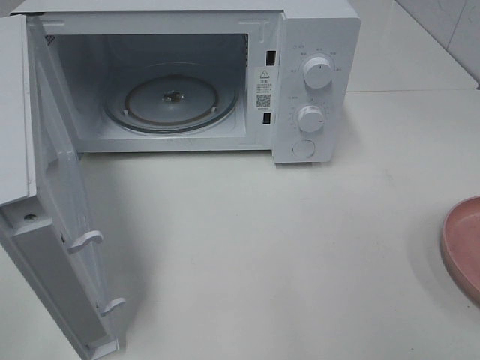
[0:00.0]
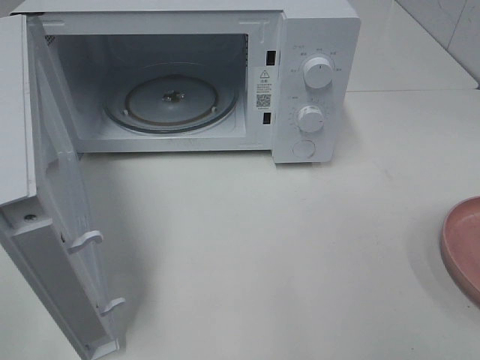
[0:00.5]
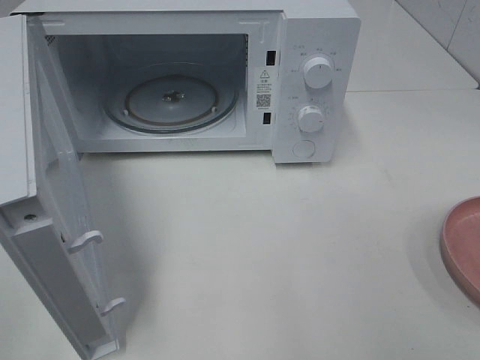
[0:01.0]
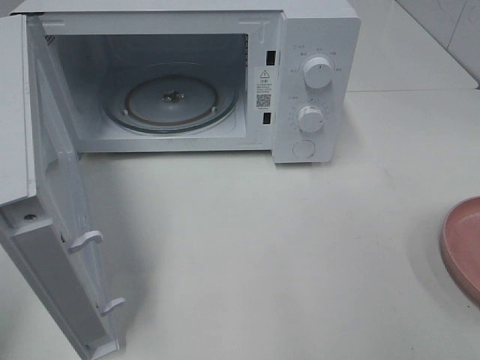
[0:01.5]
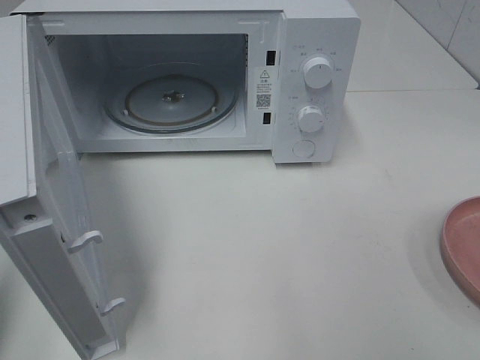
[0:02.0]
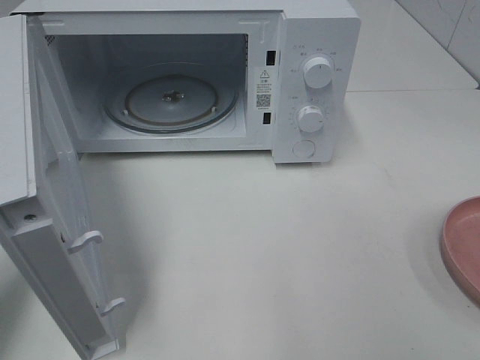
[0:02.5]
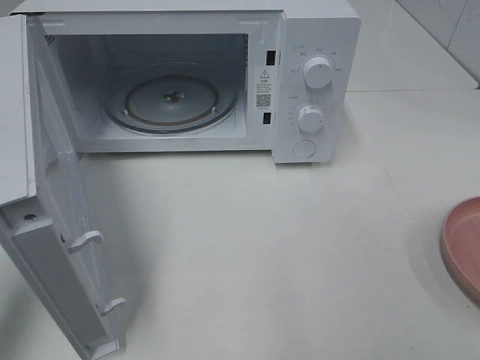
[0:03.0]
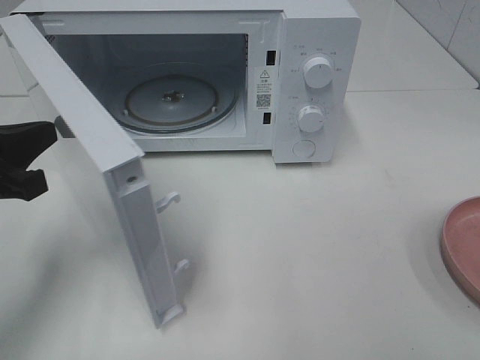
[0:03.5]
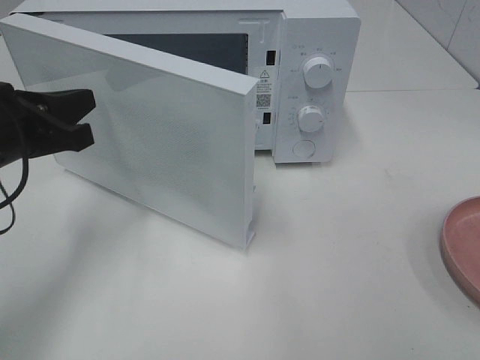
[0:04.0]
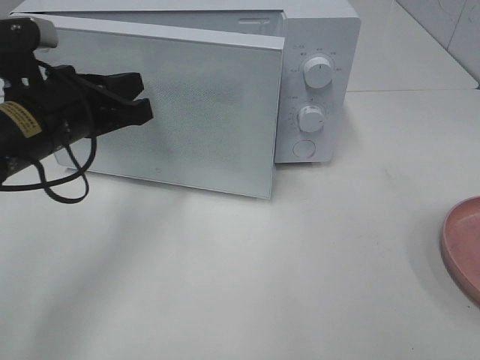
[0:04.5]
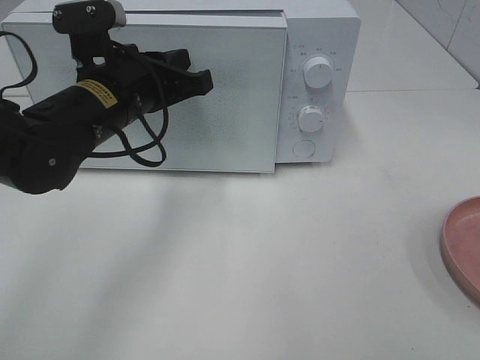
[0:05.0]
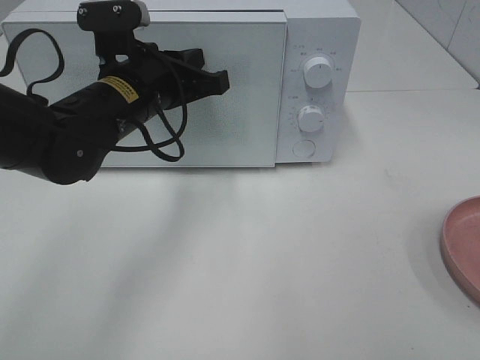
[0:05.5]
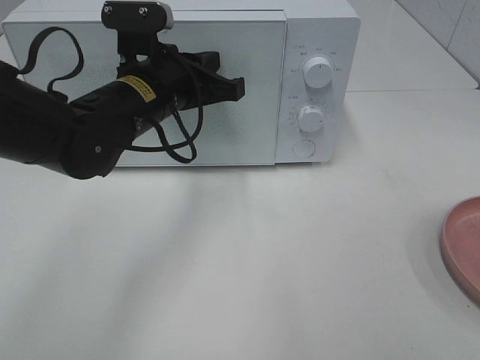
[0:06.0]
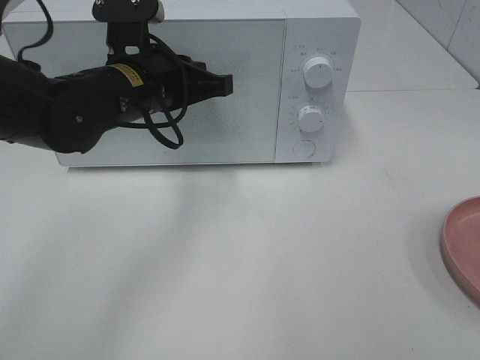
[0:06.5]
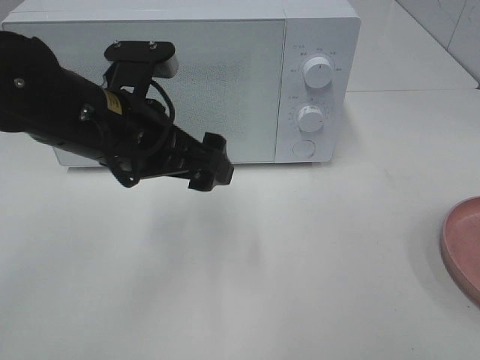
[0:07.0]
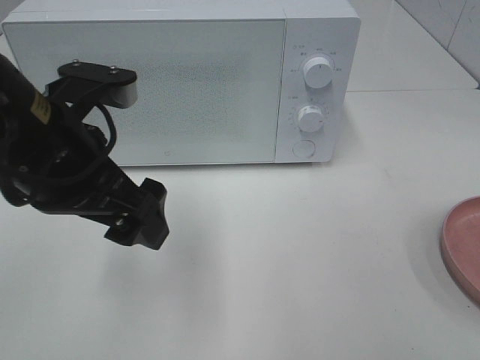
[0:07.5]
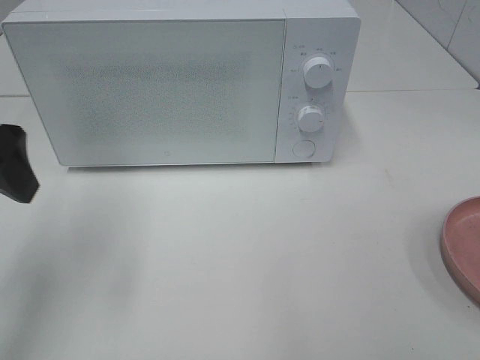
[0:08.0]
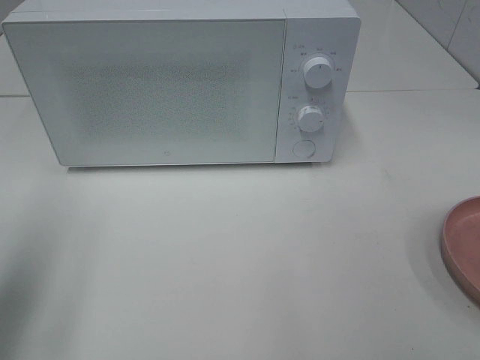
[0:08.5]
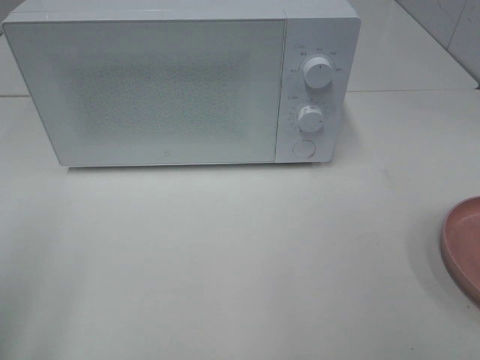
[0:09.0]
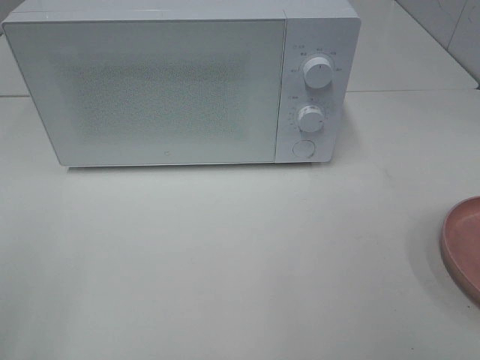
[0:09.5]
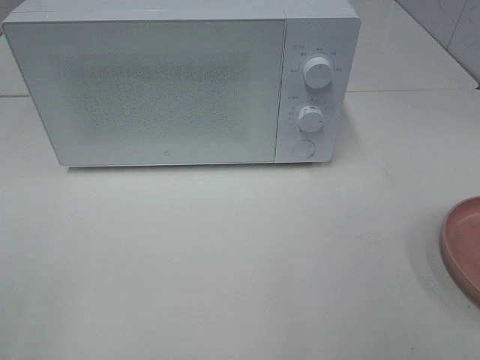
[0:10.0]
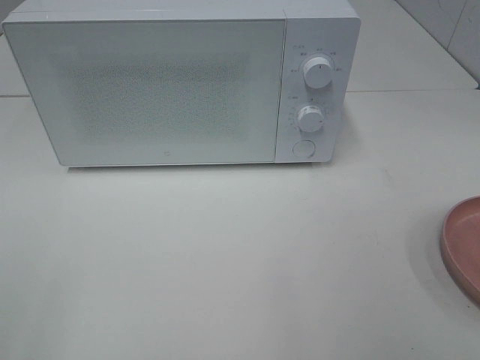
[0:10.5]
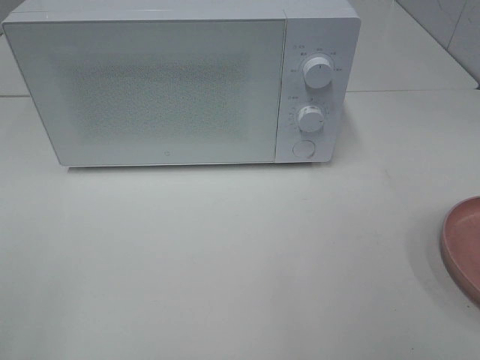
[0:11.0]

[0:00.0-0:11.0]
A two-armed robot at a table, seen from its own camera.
Task of the whole recording: Heat the burger.
Step, 0.0 to 6.0 s: Left hand: close the microwave door.
2.0 to 3.5 s: The left gripper shifts some 15 cm forward, to the right and downward.
3.5 to 5.5 s: The left gripper heads to the right and forward, covering roughly 20 cm.
5.5 to 7.5 s: The left gripper shifts some 15 cm backward and upward, and opens up.
7.5 to 9.0 s: The left gripper moves to the left and backward, approximately 20 cm.

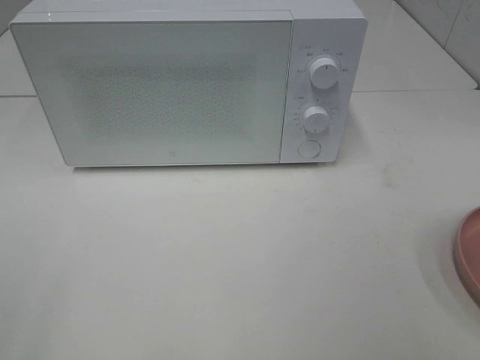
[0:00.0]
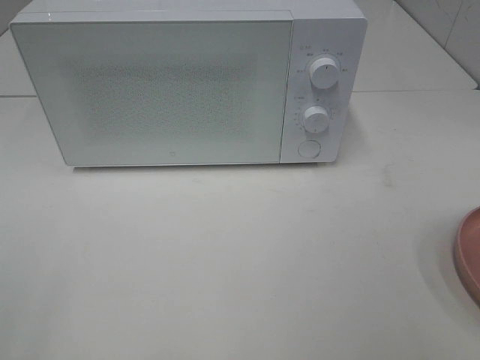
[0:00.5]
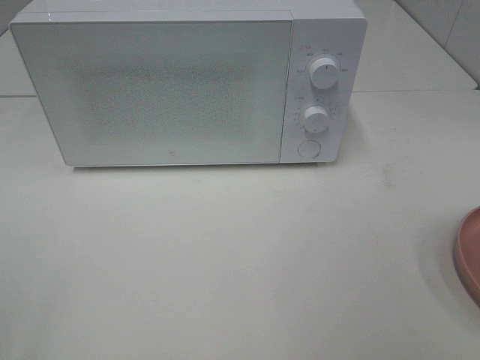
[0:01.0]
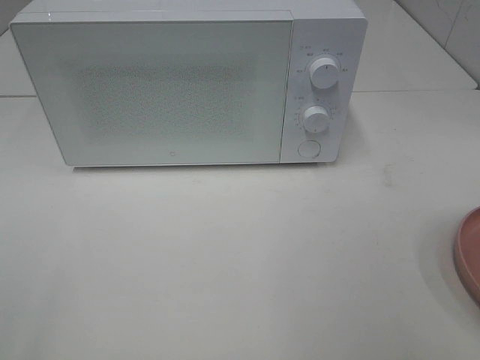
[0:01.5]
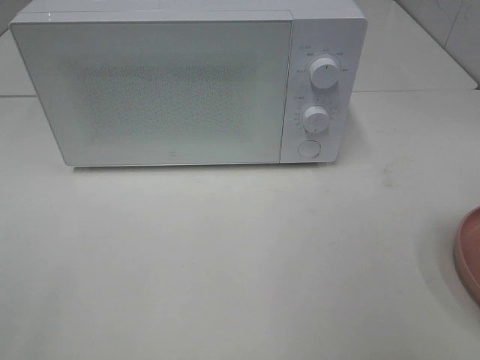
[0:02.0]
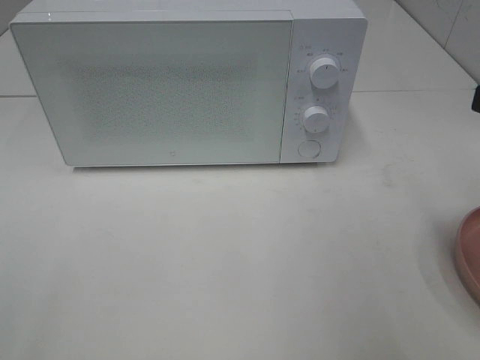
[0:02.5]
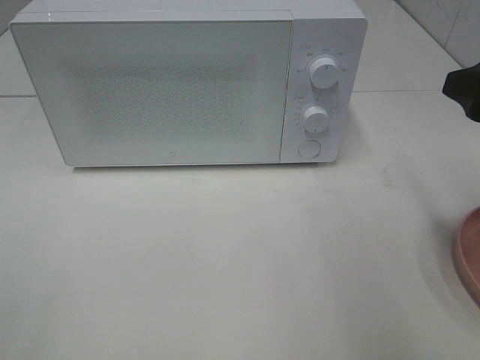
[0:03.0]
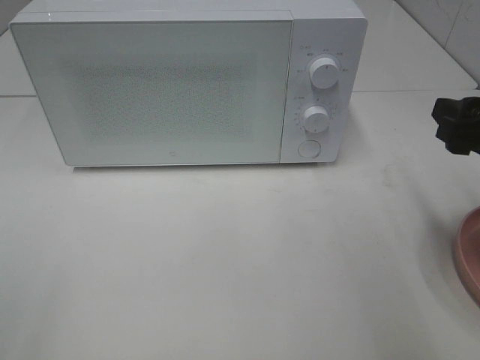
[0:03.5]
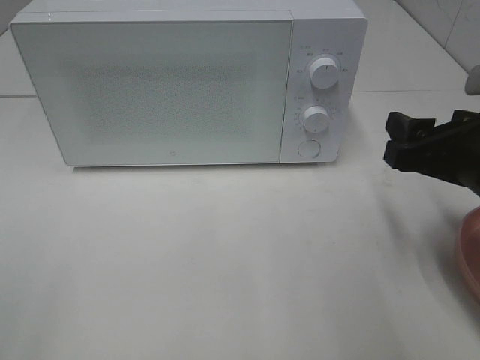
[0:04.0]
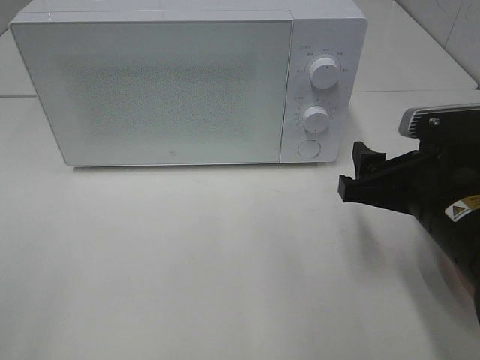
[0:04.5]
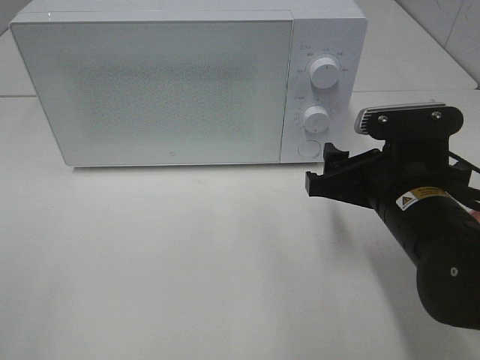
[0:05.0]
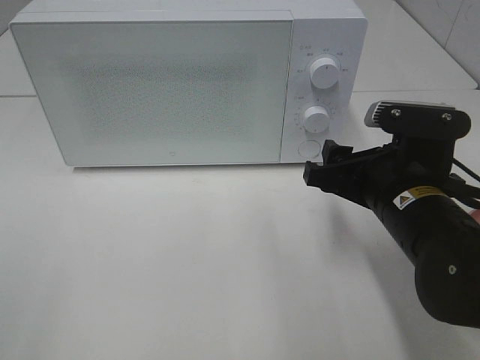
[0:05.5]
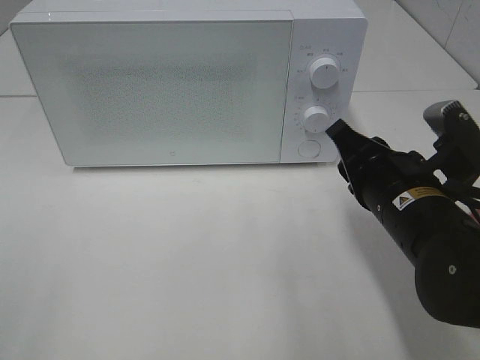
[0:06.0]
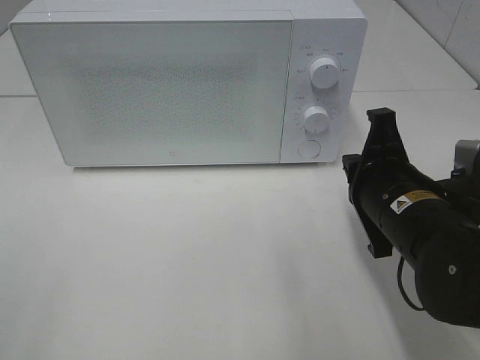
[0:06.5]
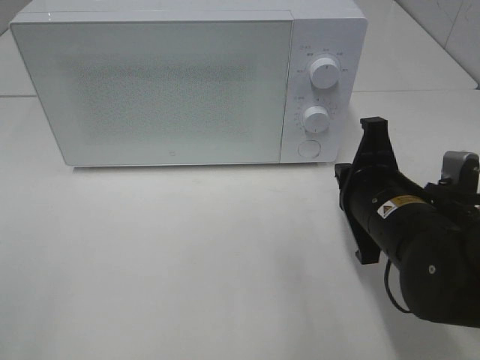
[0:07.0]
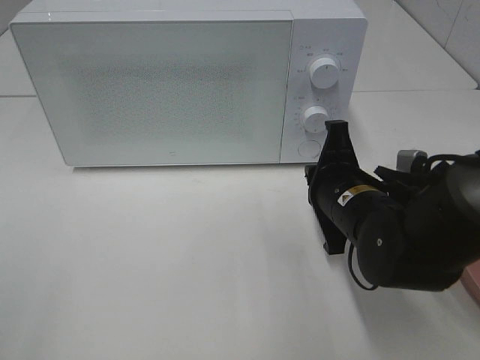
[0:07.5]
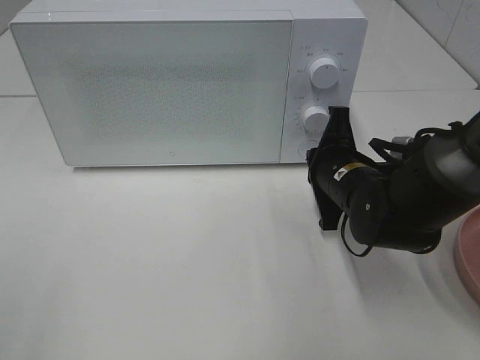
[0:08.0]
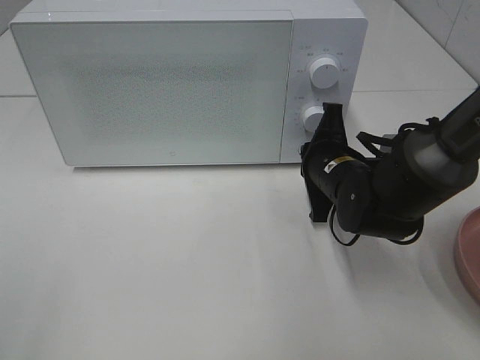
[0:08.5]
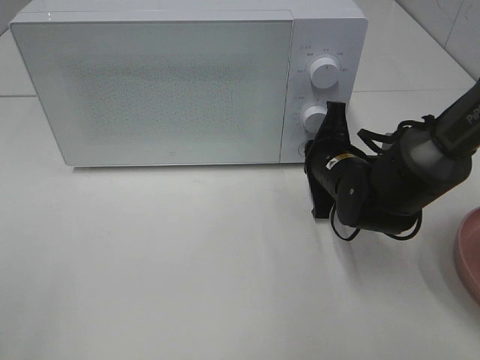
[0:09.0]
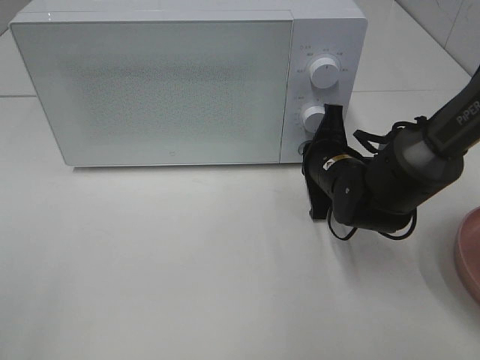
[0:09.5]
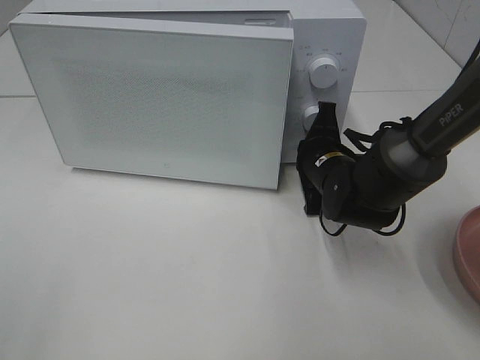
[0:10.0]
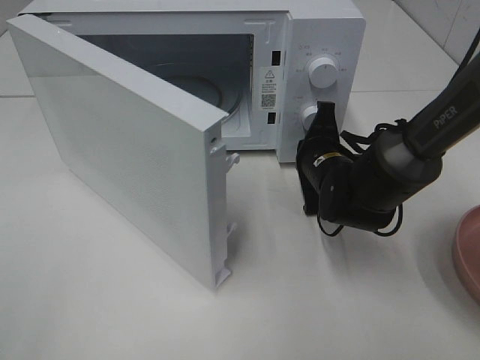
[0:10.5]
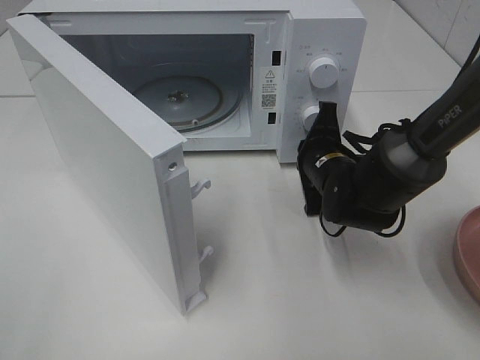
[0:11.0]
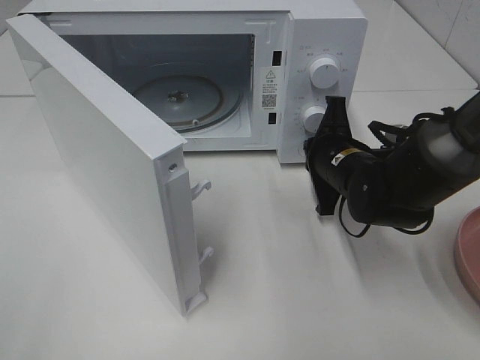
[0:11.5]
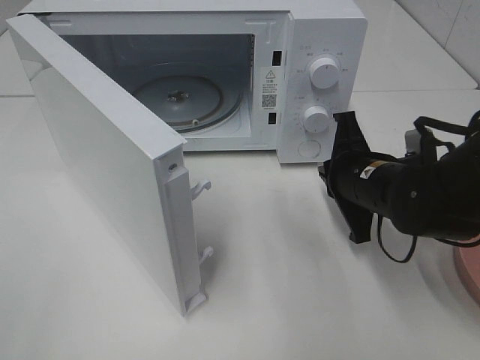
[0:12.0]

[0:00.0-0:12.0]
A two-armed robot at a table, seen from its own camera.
Task of the whole recording: Heat the burger.
Step, 0.0 to 11.5 s: Right hand: press the switch.
2.0 to 4.0 s: The right gripper travels downward and forward by about 15 cm.
4.0 to 6.0 s: The right gripper goes about 5 cm to the left, and closes.
6.0 to 8.0 s: The right gripper shifts approximately 10 cm forward.
8.0 to 10.0 s: The right gripper moves approximately 5 cm.
10.0 to 12.0 s: The right gripper goes about 5 cm backward.

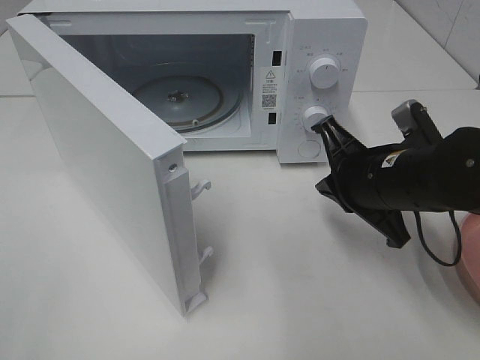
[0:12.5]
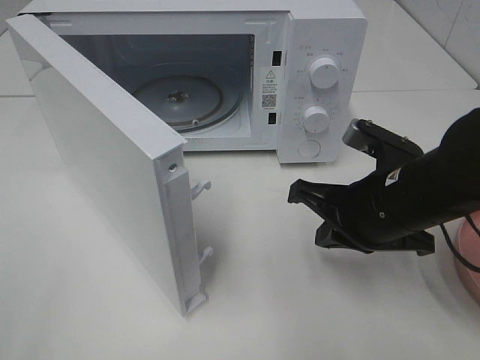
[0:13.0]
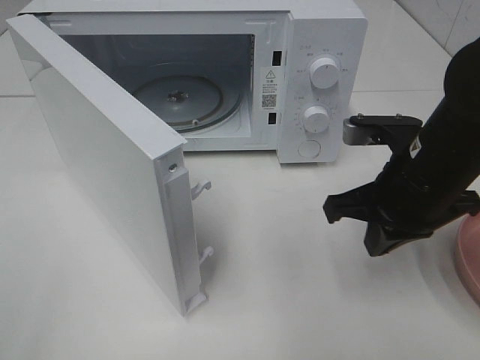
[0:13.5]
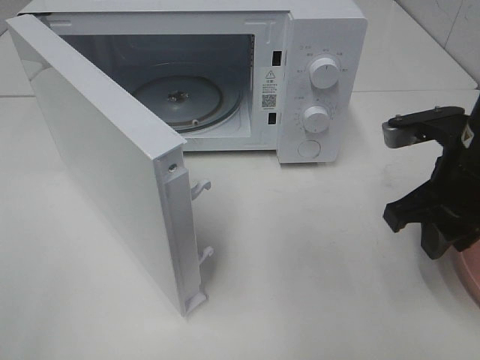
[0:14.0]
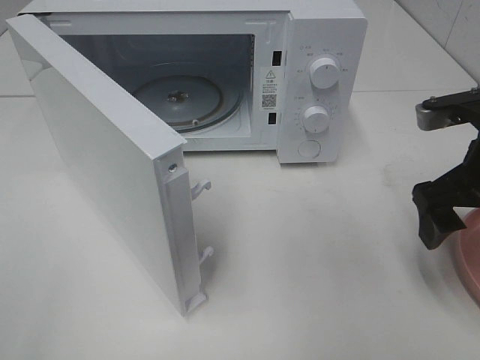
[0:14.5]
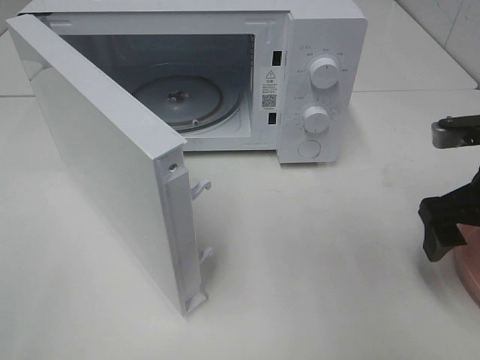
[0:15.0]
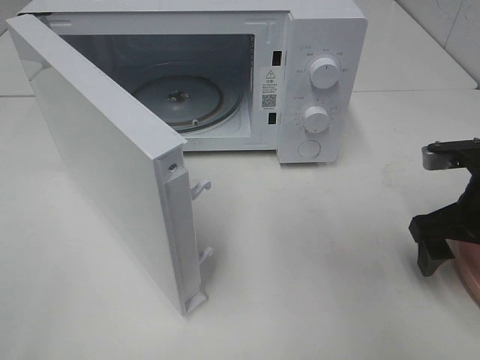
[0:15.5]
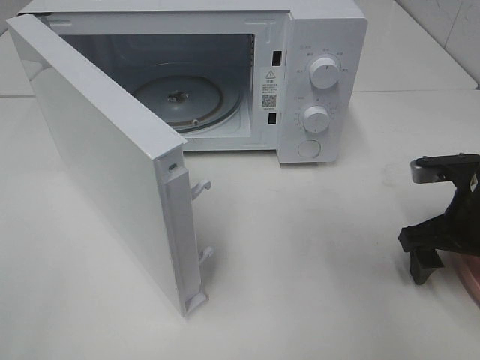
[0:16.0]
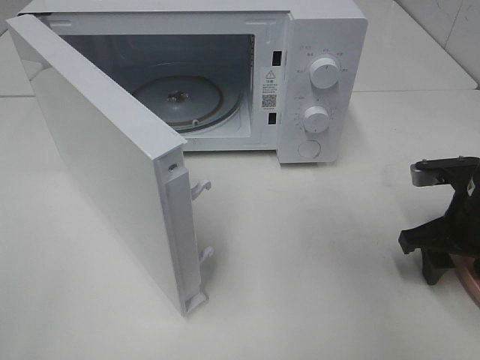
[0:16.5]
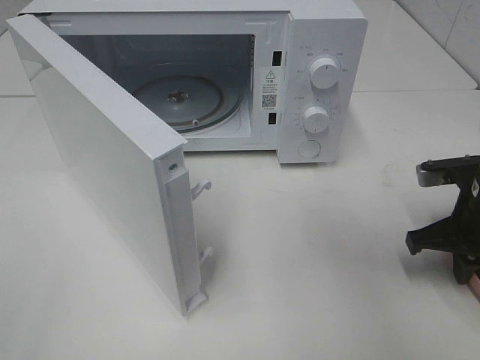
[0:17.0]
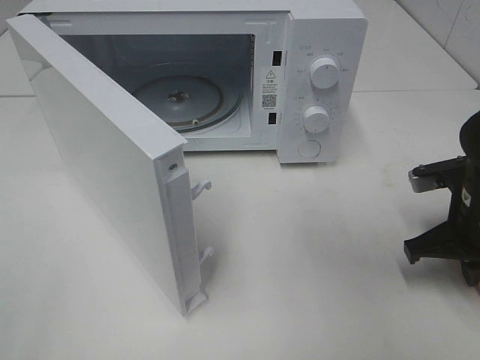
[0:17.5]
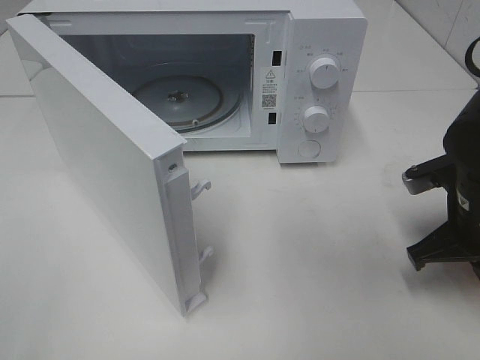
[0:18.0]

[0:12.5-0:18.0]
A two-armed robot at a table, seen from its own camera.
Task of the whole recording: Heat the burger.
Step, 12.5 to 16.5 s: Right hand: grab the plate with the hamburger.
12.5 to 14.5 s: The right gripper shifts about 10 cm to the right and upward, and opens its fingers.
14.5 to 16.0 s: The right gripper shifts roughly 10 cm downward.
16.0 to 18.0 s: The right gripper closes.
